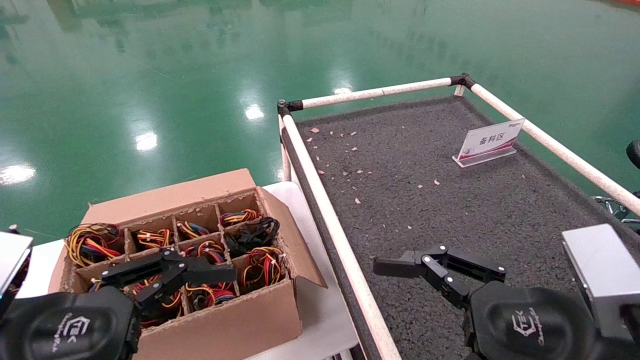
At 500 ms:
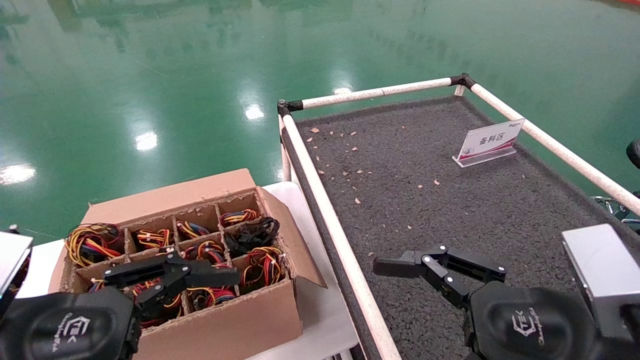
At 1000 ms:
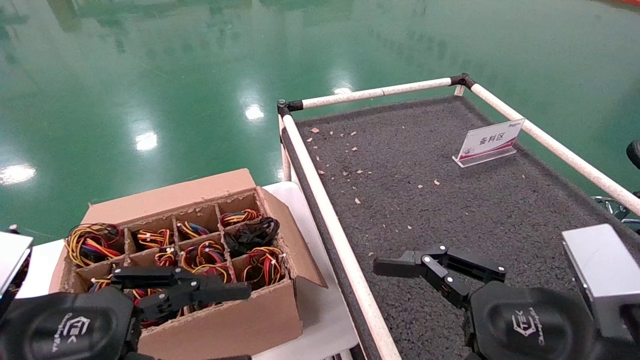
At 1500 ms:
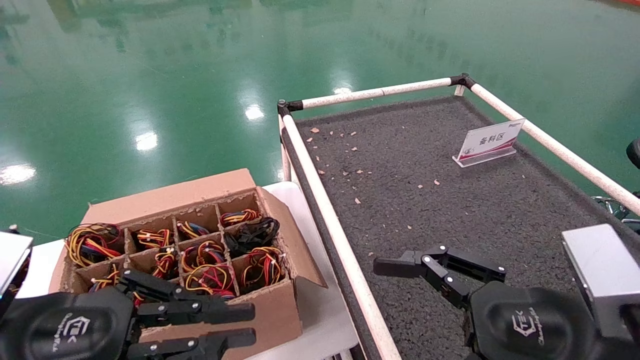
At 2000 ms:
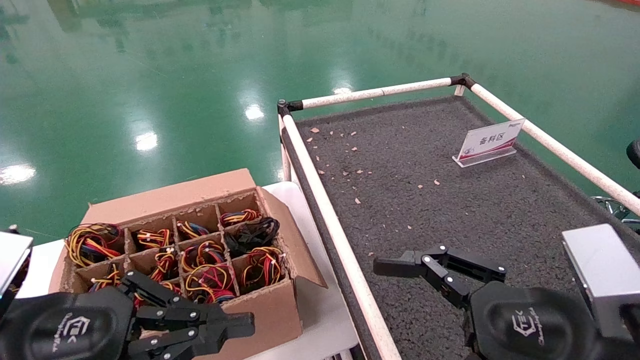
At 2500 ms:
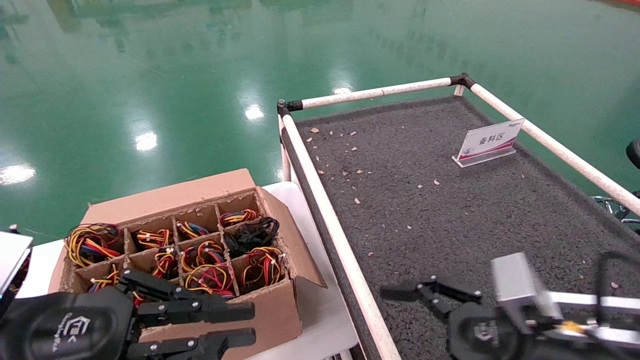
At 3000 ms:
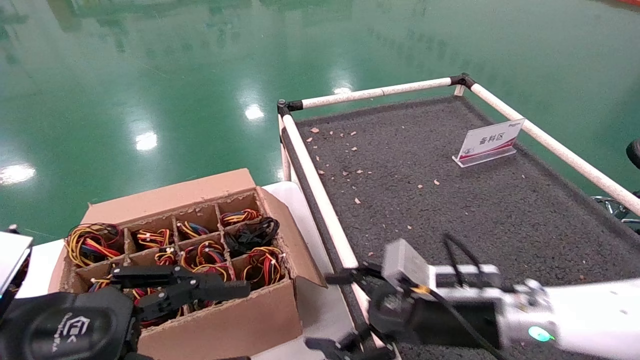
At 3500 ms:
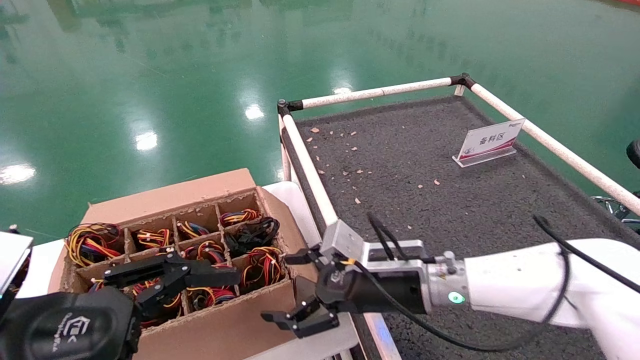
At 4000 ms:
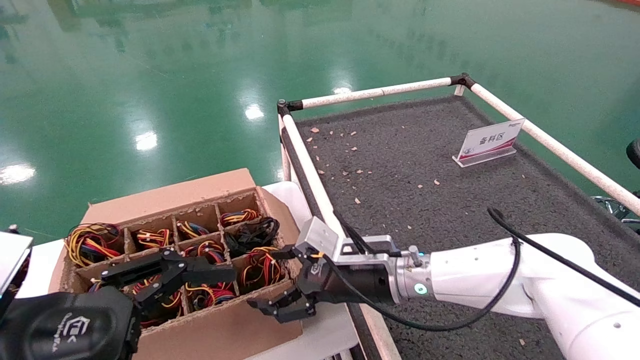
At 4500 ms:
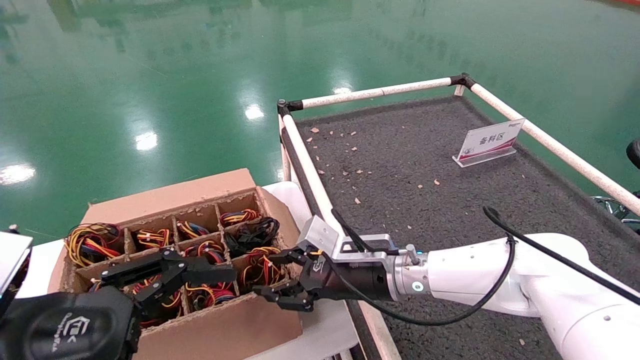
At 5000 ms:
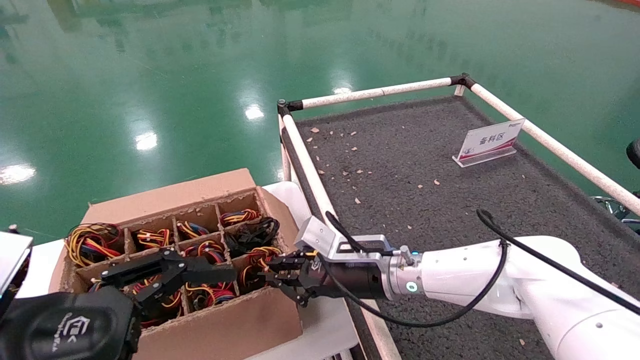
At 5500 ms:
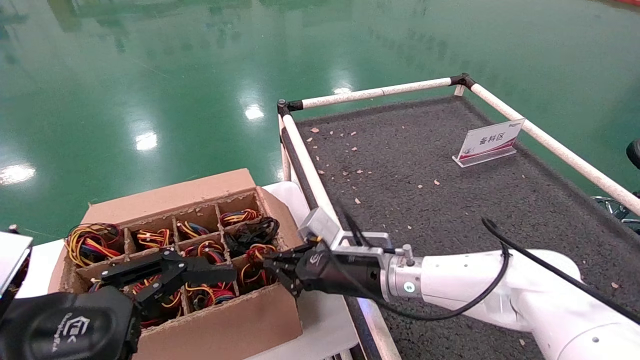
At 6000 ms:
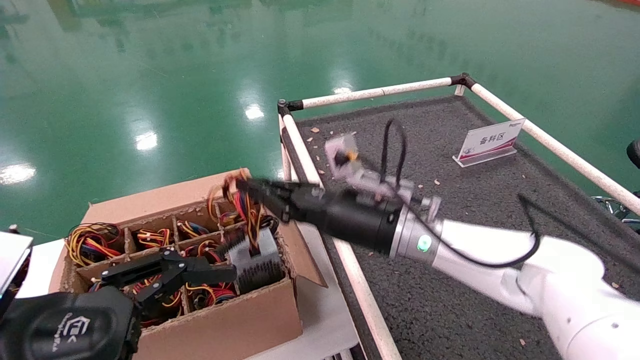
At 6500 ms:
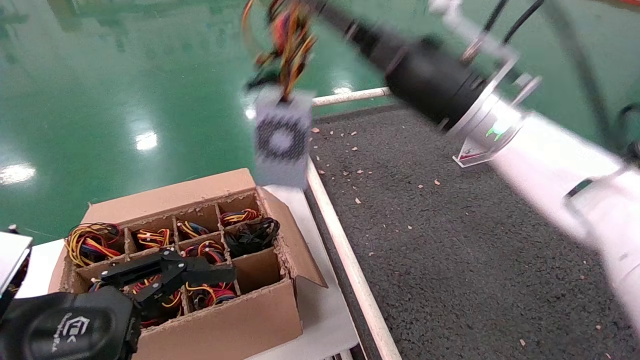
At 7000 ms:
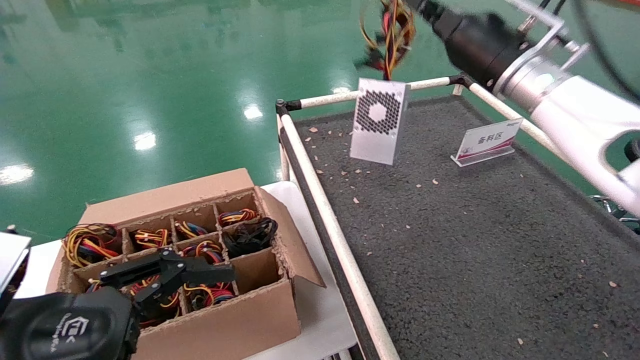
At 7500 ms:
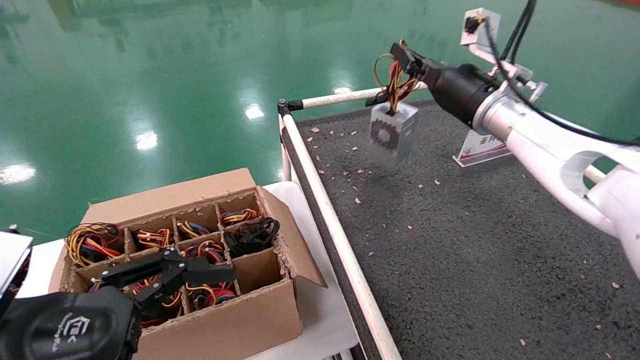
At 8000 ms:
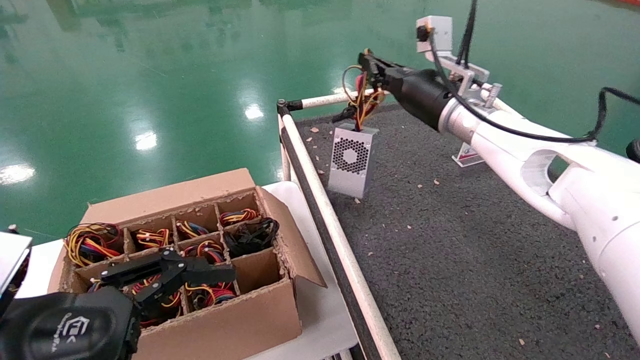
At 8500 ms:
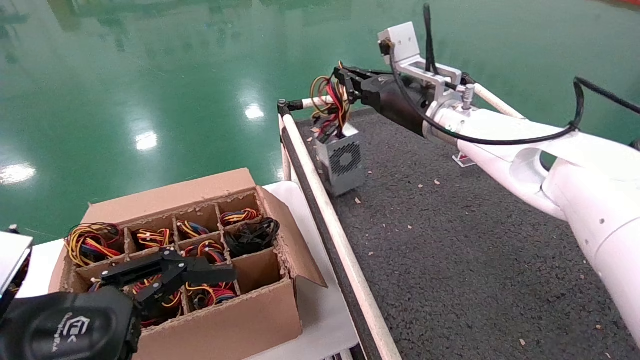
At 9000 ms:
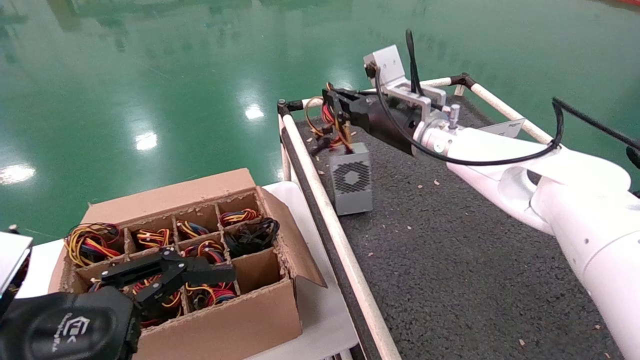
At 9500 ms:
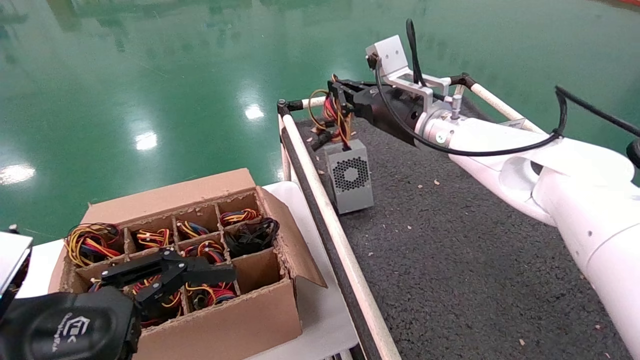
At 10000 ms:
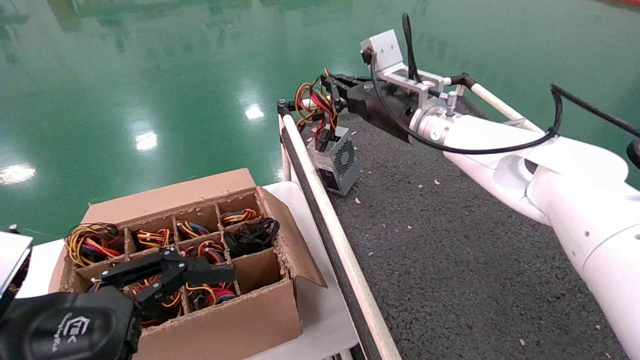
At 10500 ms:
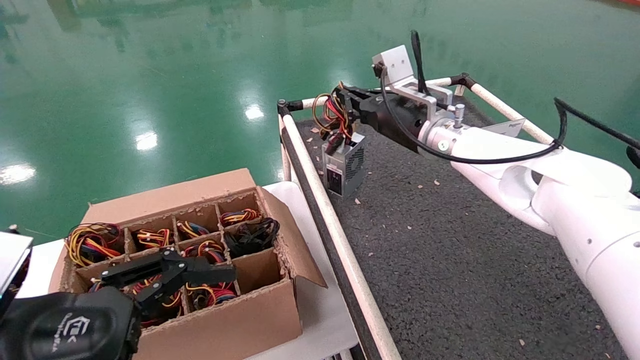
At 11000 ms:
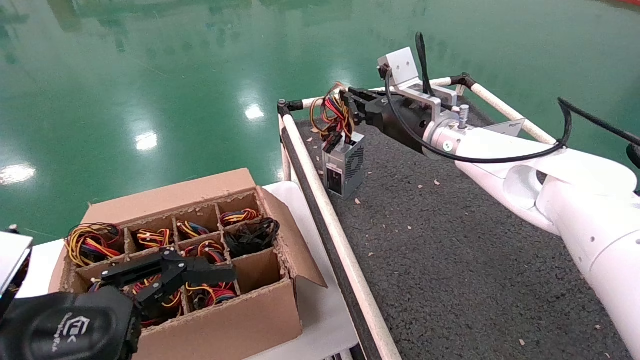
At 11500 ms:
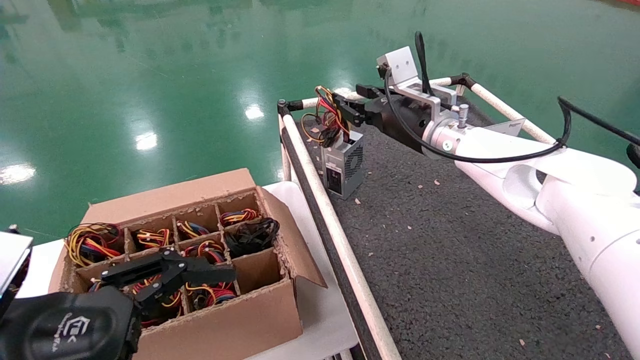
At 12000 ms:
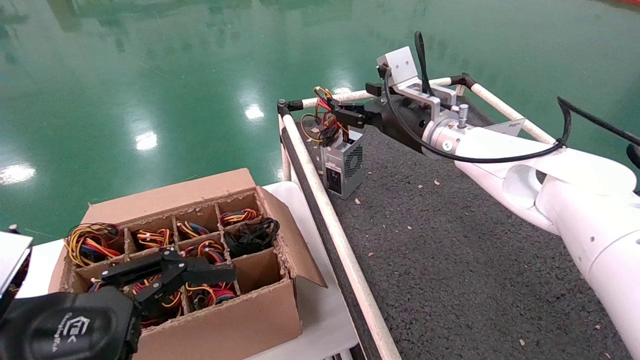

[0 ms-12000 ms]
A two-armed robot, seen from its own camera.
Step, 500 ms to 5000 ms: Grab and lift the power supply from the large box.
Step, 5500 ms to 10500 ms: Place the power supply on the operating table.
0 ms to 2000 ms: The left gripper closes up.
2000 ms to 4000 ms: The left gripper opens its fingers. The right gripper heads forward and to the left, covering approximately 25 cm.
4000 ms to 6000 ms: The right gripper shifts roughly 10 cm upward, and closes its fingers.
6000 ms to 8000 ms: The right gripper goes some 20 cm upward, to the right and forward.
8000 ms to 10000 ms: The grippers make only small movements.
10000 ms to 12000 ms: The right gripper opens.

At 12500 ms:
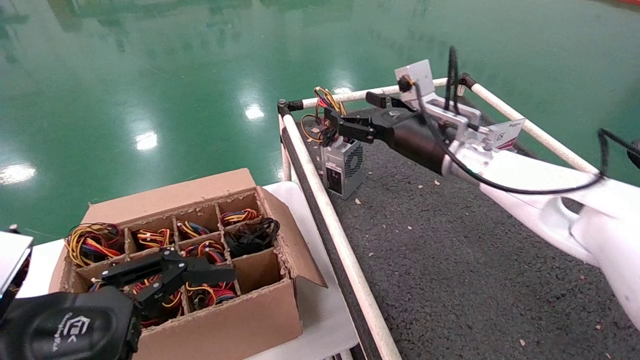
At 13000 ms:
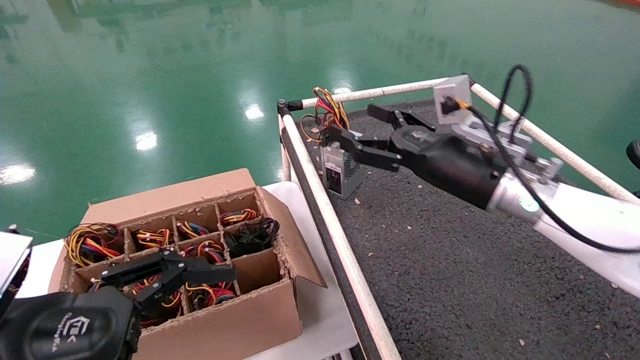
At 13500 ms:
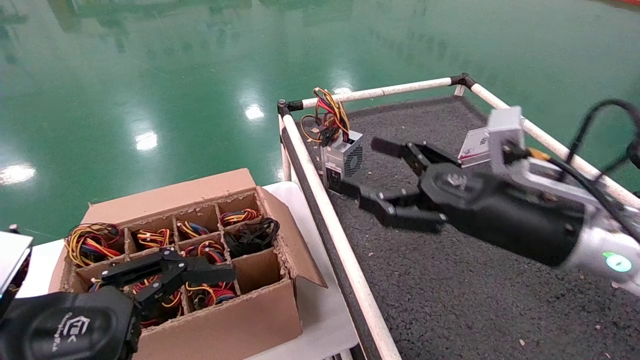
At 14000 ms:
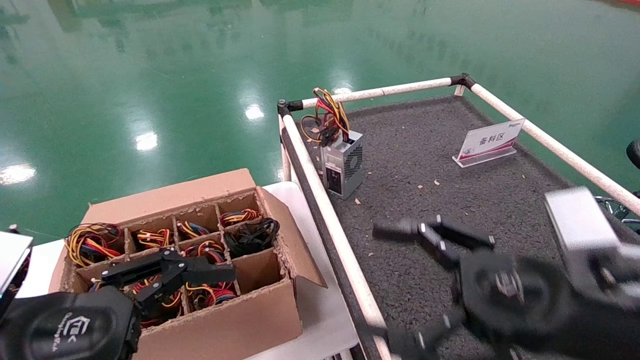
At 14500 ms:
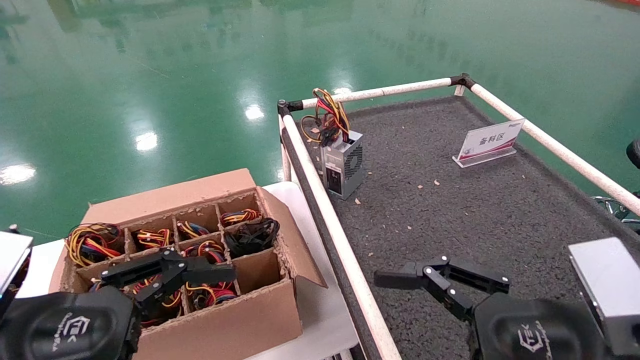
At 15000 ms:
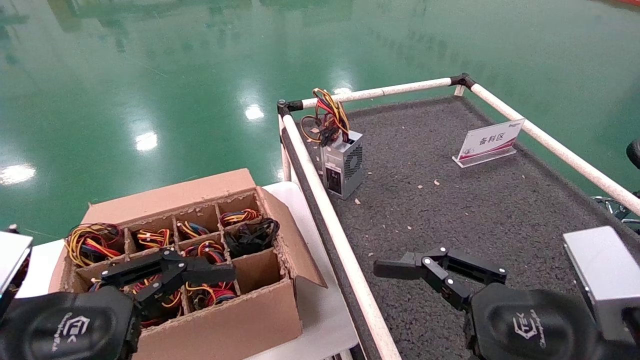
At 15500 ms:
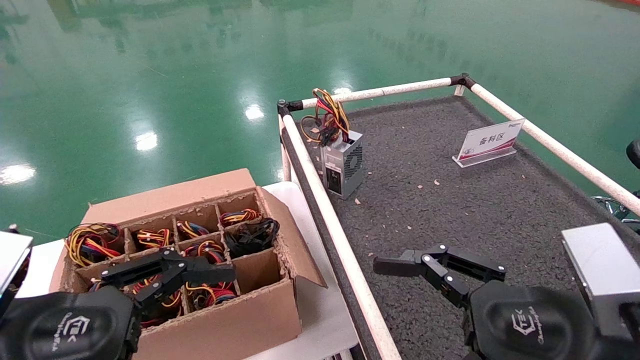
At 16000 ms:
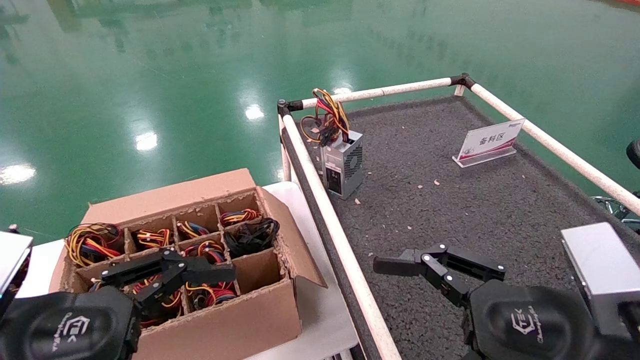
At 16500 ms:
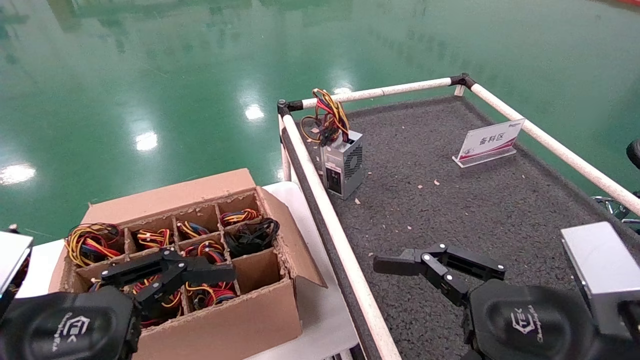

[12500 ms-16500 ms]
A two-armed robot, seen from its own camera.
12500 ms to 14500 ms: The right gripper is displaced backward and downward by about 30 cm.
14500 ms to 16500 ms: Both grippers stay put.
